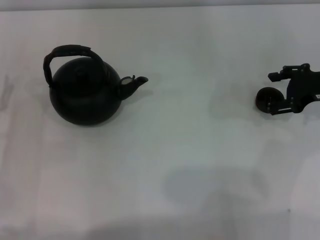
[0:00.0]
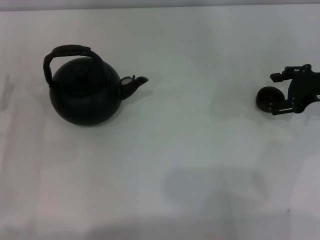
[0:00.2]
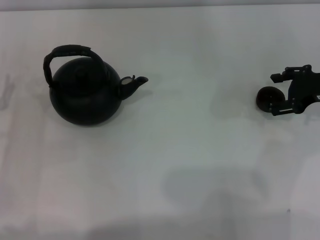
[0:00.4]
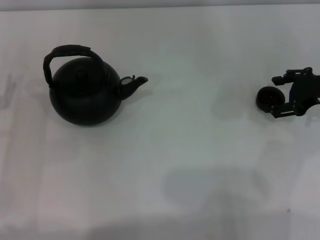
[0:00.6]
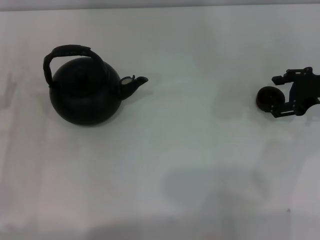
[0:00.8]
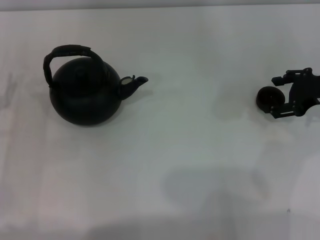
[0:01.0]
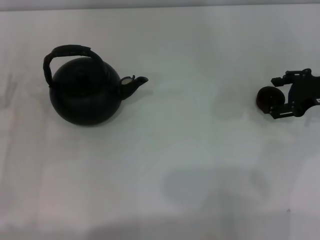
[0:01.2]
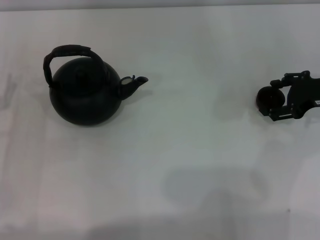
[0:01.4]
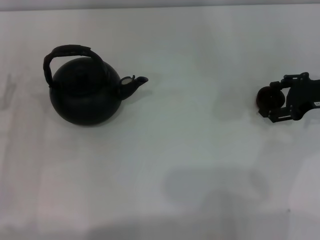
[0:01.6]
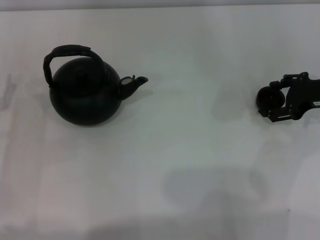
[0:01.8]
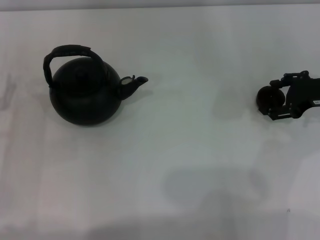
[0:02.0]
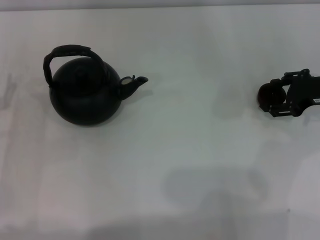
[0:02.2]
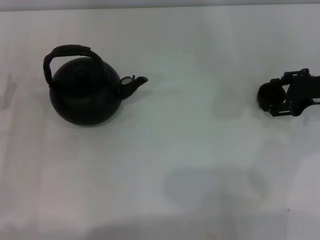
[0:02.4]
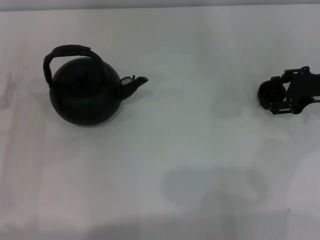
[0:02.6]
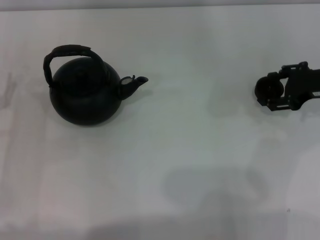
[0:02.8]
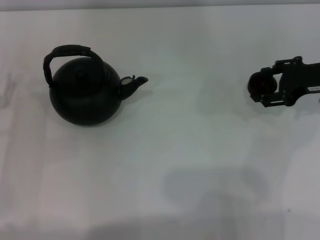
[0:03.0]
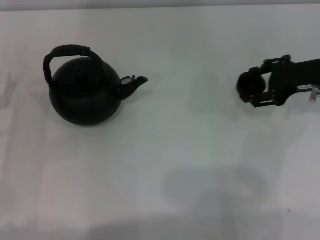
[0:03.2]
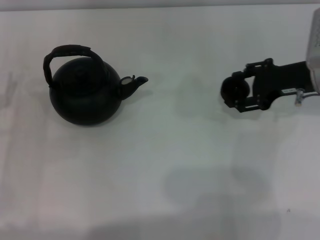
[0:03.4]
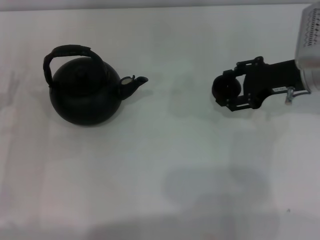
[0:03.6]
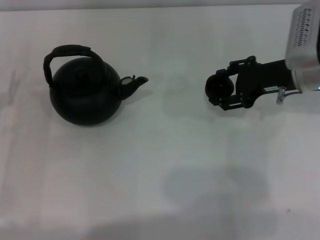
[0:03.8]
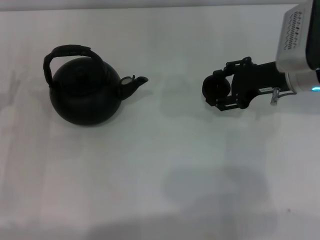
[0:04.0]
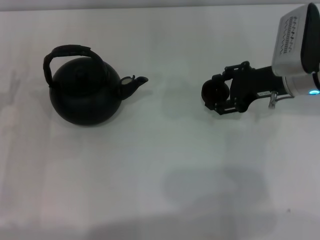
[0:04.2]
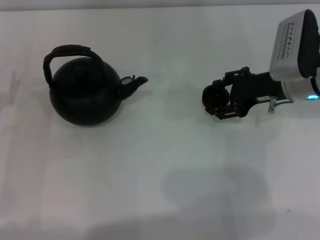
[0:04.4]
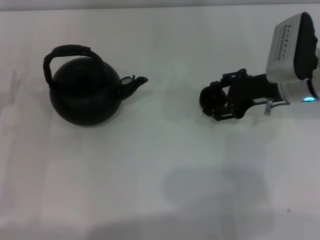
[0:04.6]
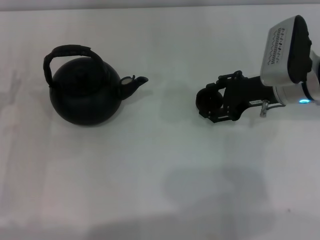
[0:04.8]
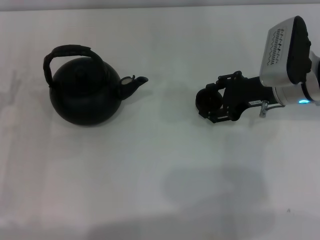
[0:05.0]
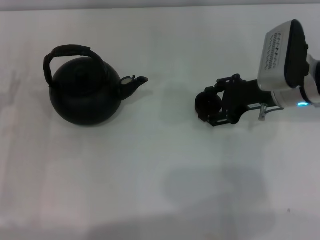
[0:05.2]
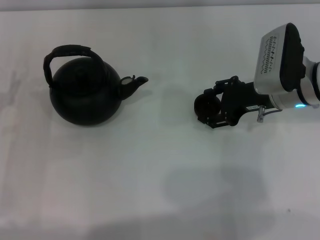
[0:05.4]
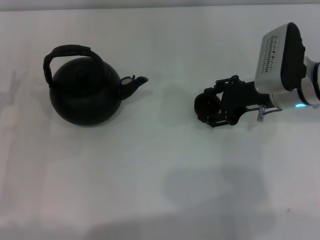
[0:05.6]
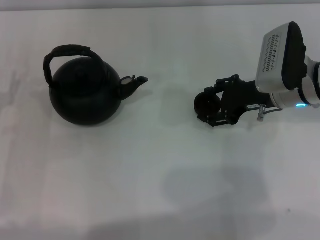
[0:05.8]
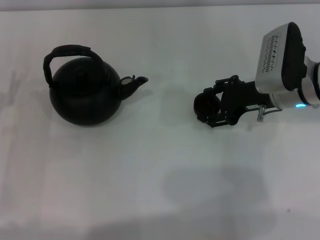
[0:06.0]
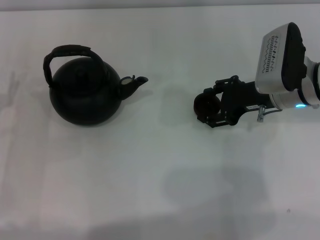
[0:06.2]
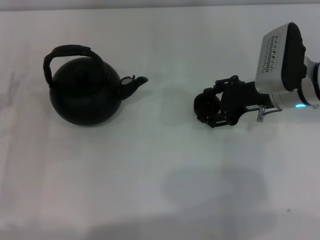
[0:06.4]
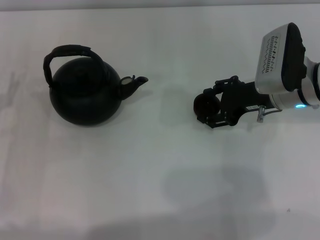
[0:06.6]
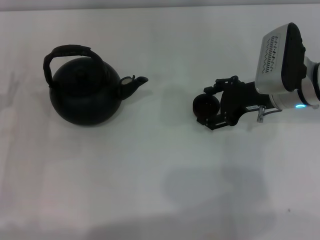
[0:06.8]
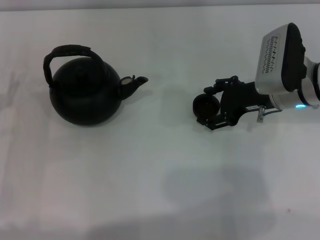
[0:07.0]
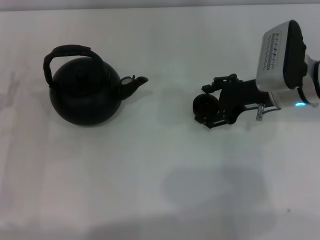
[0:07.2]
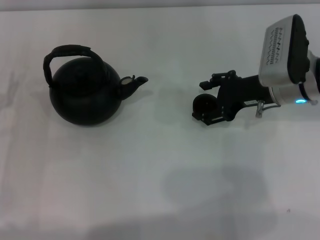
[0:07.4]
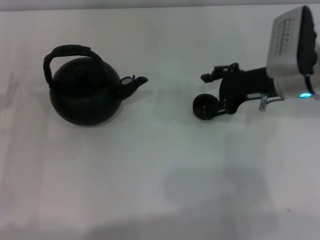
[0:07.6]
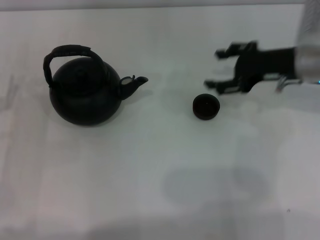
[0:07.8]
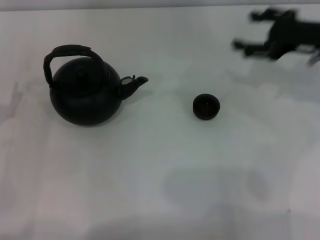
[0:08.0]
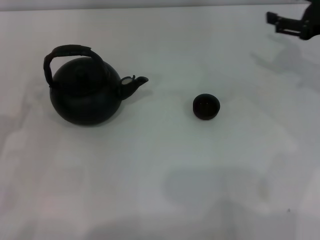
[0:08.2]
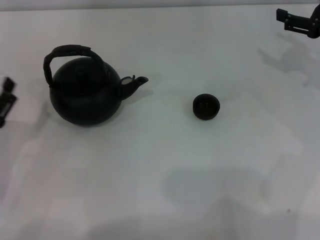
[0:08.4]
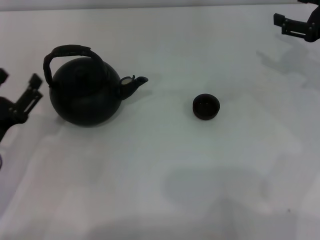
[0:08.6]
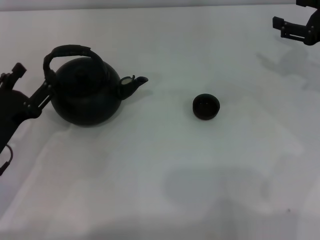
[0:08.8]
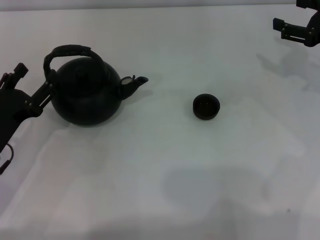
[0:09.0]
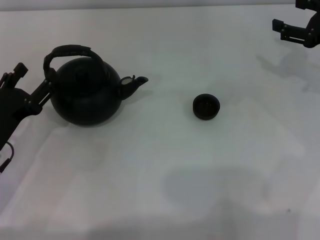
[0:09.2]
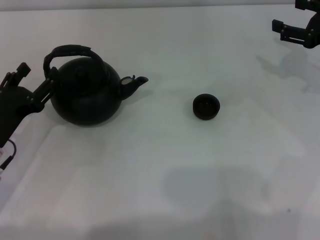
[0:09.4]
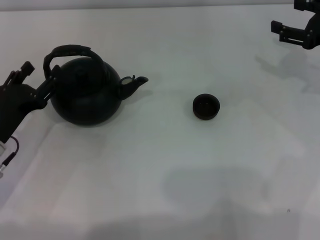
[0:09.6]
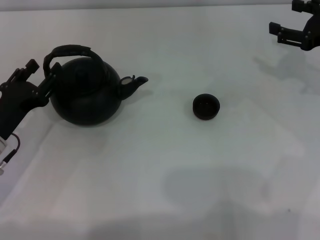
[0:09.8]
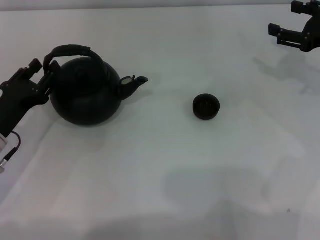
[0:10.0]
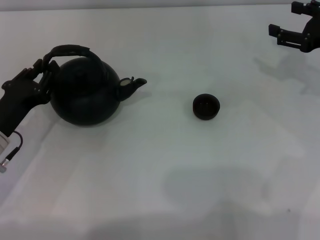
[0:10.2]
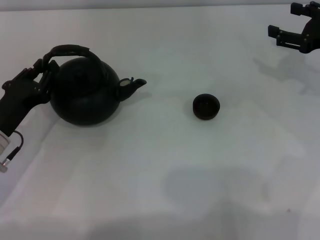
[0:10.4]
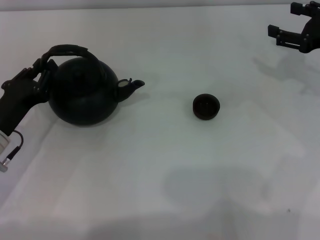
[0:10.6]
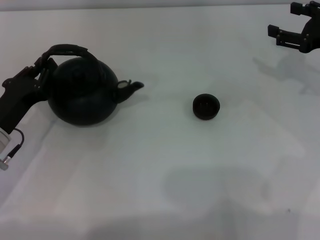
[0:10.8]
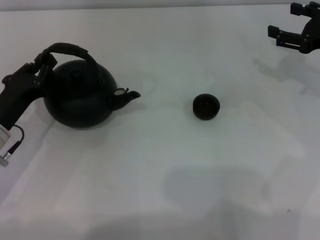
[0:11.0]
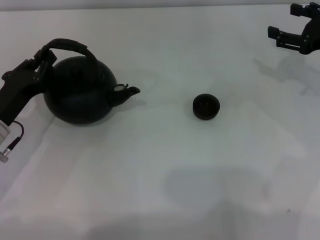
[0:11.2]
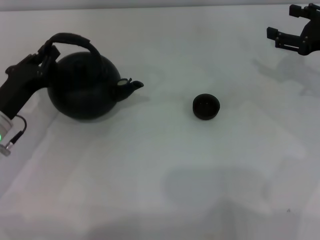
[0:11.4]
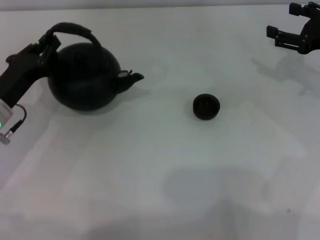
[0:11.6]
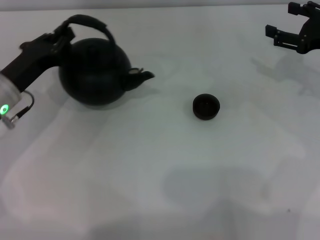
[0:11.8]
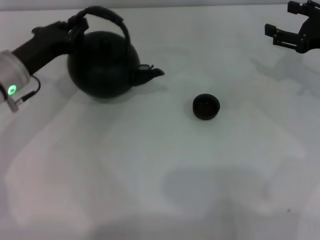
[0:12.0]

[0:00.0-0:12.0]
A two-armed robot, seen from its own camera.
Task of the whole recording: Grasp the handle of the teapot with one hand and pour tea into the teacup.
Step, 0:00.0 to 0:03.0: Pick up the teacup with the right gripper.
Step, 0:03.2 to 0:07.6: Place the teacup in the center of view with the right gripper.
0:00.0 to 0:01.6: Both grippers stay about where they are.
0:01.6 to 0:03.0: The right gripper closes its fingers.
0:03.0 to 0:04.4: The right gripper travels to the left by about 5 cm.
0:04.4 to 0:06.0: There are only small adjustments of the grippers.
0:06.0 to 0:07.6: The right gripper opens its fingers.
0:07.6 to 0:09.0: The left gripper shifts by about 5 cm. Meanwhile the right gripper heads to the right, covering about 10 cm.
0:09.0 to 0:10.4: The left gripper closes up.
0:10.4 to 0:12.0: The left gripper travels forward and upward by about 10 cm.

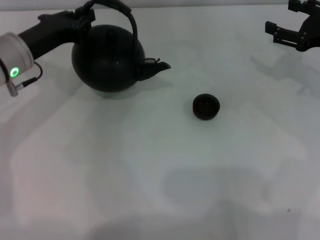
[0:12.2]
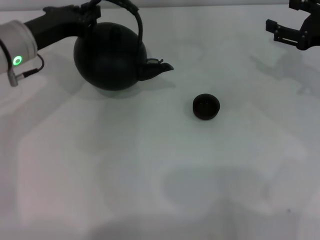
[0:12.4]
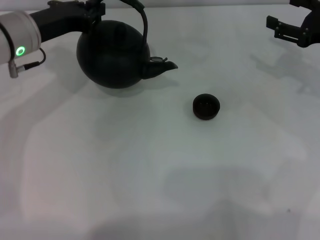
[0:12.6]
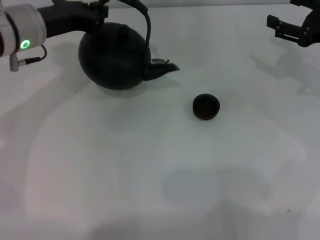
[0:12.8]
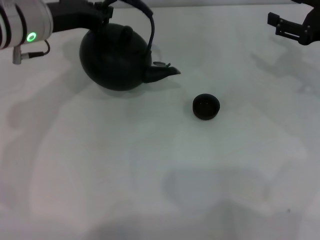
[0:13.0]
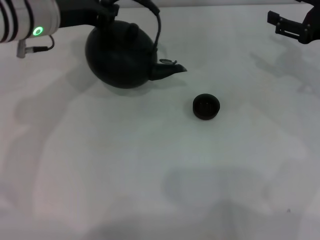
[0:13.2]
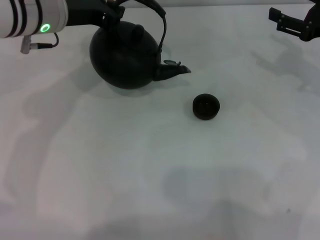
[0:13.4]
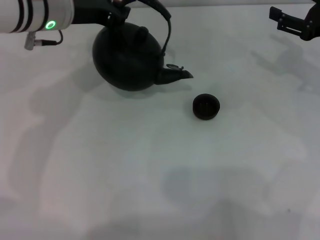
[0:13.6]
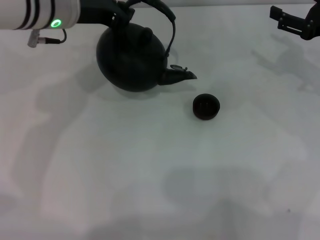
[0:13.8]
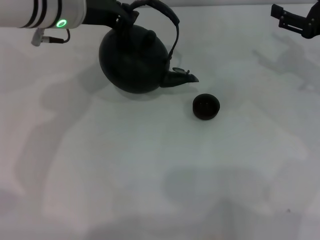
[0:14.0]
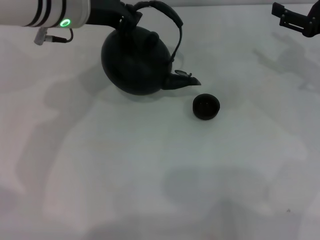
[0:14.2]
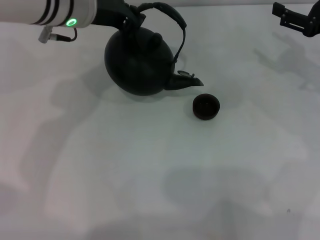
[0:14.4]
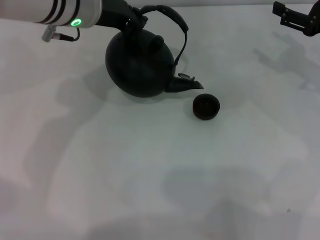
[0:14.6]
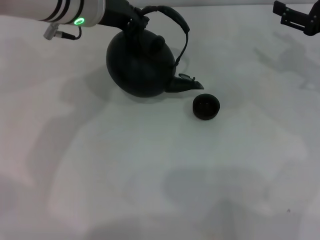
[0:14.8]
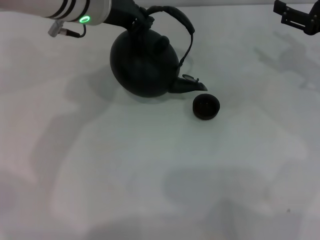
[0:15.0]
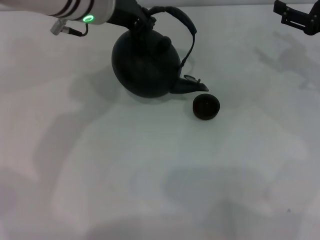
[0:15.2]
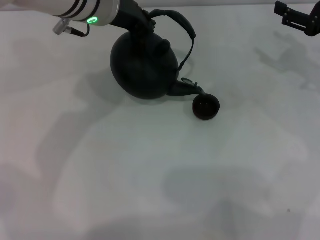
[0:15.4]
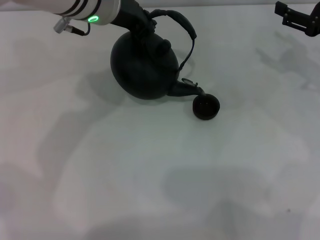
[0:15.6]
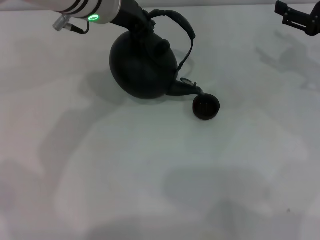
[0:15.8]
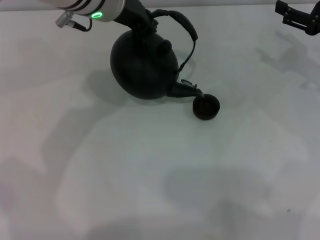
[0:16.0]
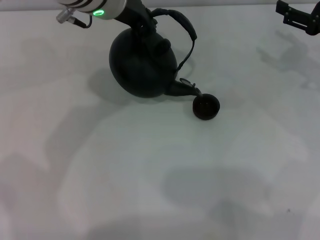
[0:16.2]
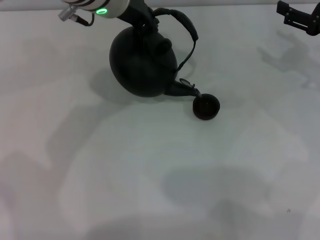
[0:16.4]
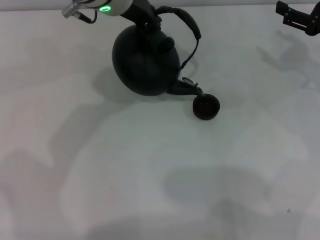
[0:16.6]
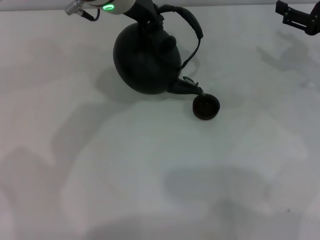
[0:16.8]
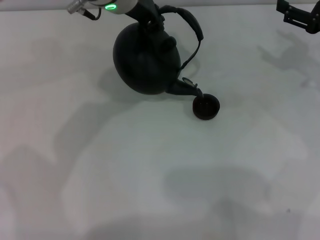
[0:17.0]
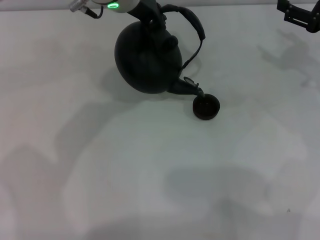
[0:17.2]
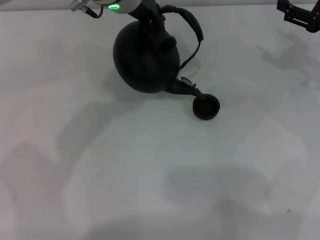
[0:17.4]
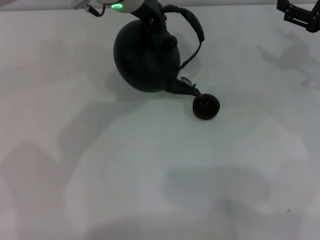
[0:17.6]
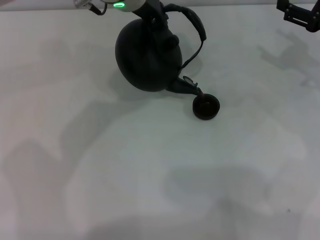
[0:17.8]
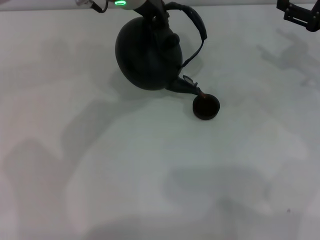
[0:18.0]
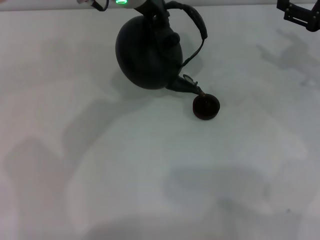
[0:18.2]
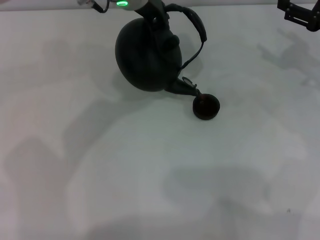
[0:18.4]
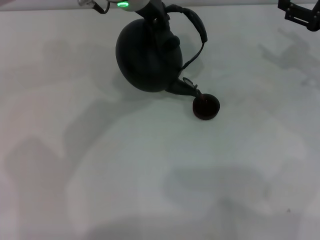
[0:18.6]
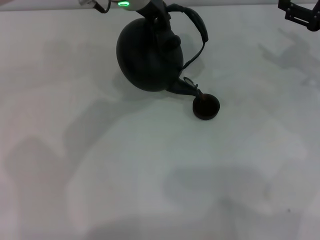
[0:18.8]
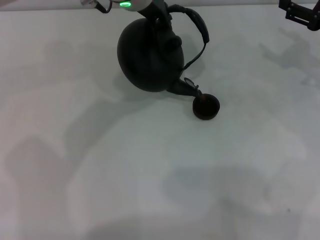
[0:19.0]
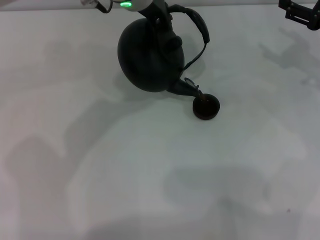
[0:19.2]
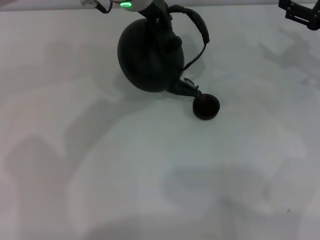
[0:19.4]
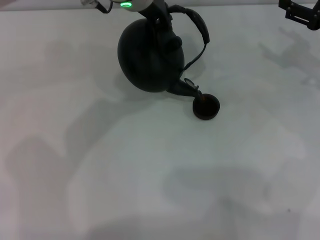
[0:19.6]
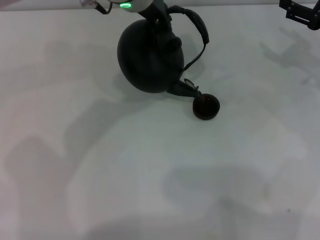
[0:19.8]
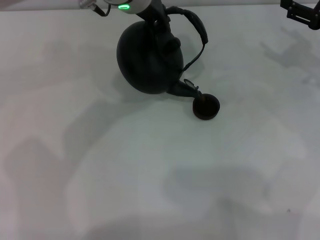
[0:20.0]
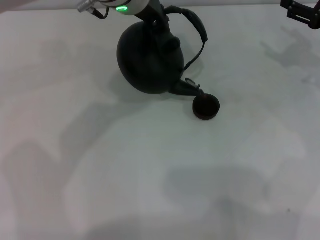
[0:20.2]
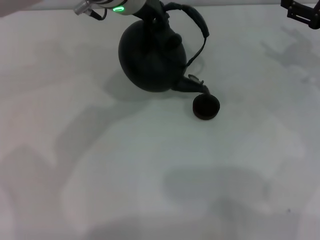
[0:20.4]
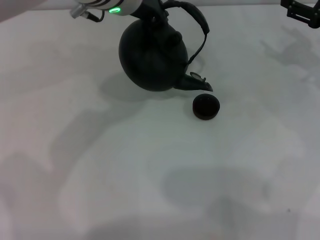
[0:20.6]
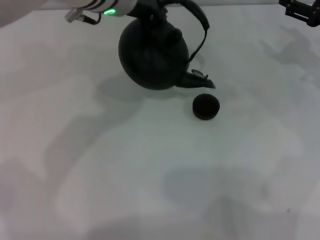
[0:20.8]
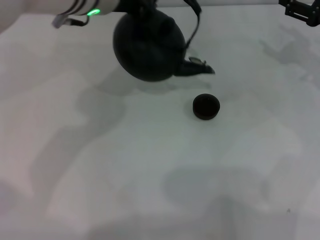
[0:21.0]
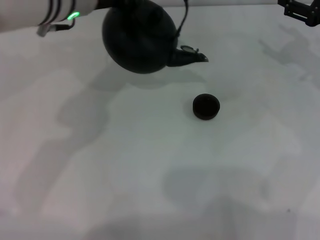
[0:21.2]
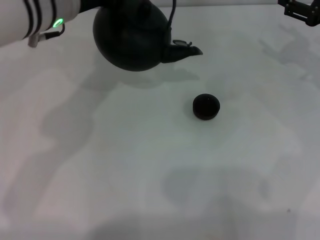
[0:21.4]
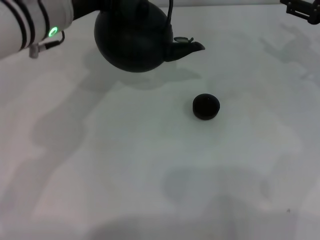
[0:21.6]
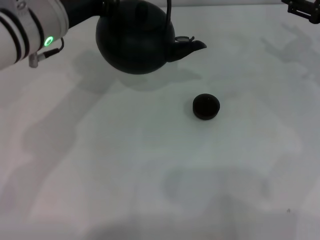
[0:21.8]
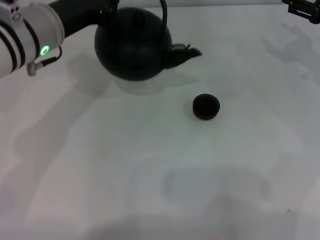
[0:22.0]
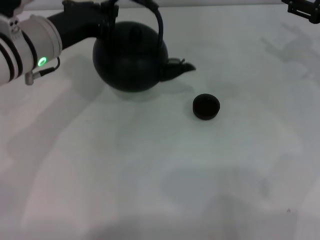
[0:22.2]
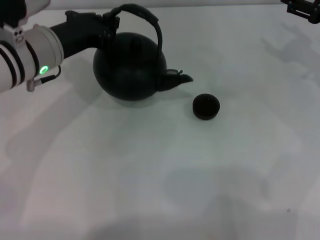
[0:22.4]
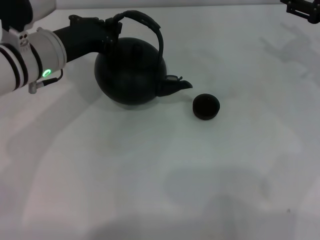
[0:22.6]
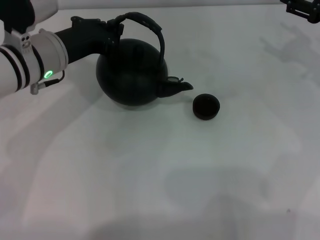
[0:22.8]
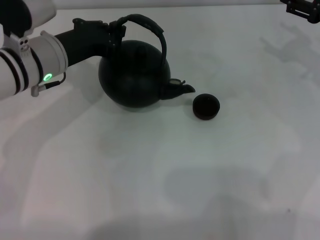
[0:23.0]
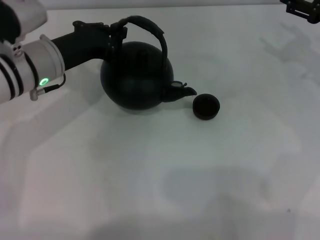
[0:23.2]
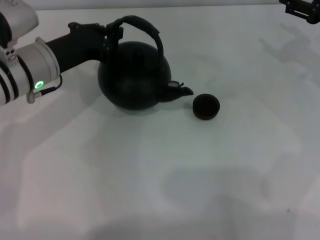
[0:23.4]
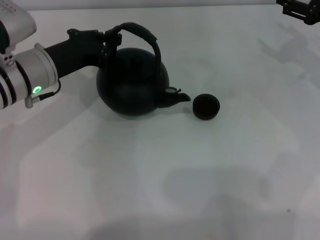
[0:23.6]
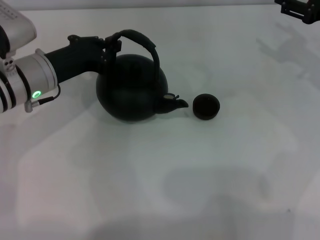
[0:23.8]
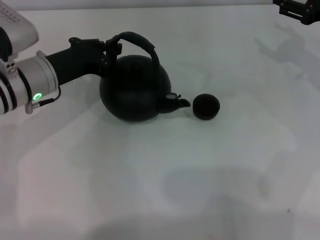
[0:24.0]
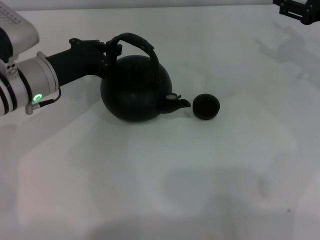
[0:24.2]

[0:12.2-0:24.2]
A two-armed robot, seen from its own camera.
Task of the whole recording: Grasp the handle of the teapot with one hand and pour tea into the teacup.
Step, 0:13.4 to 0:20.8: Pour tea into the teacup with the left gripper.
0:12.2 to 0:13.8: The left gripper shifts roughly 10 cm upward and to the right.
0:13.8 to 0:15.2: The left gripper changes place by about 5 cm.
0:15.2 to 0:16.6: The grippers make only small movements.
0:16.6 to 0:18.2: The grippers stay close to where they were, moving slightly.
0:18.2 to 0:19.8: Both grippers stay put.
0:19.8 to 0:21.2: The left gripper is displaced to the left by about 10 cm.
0:21.2 to 0:22.6: The left gripper heads downward and to the left, covering approximately 10 cm.
0:22.6 to 0:24.2: The grippers move only a little.
